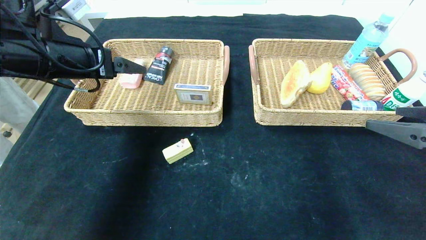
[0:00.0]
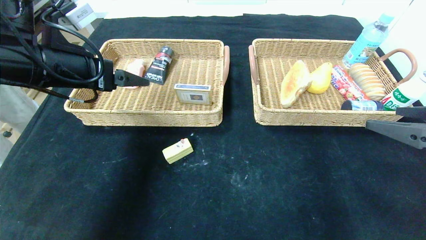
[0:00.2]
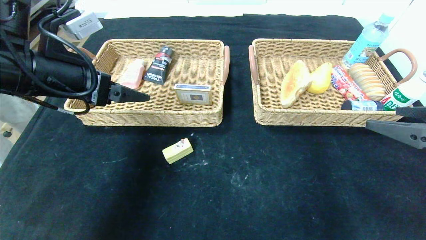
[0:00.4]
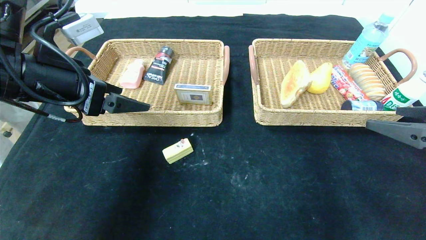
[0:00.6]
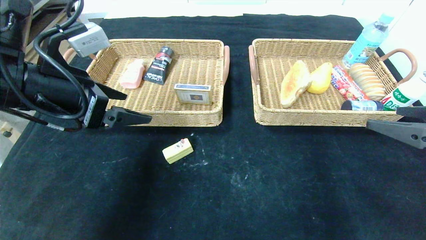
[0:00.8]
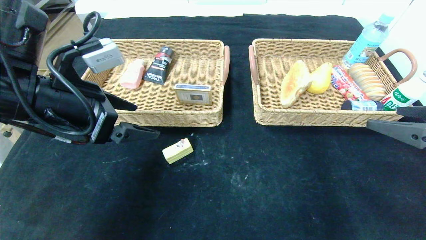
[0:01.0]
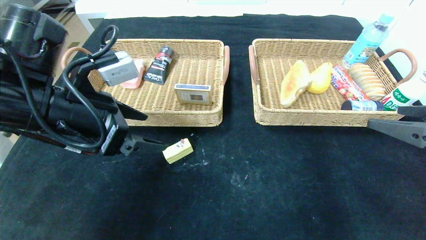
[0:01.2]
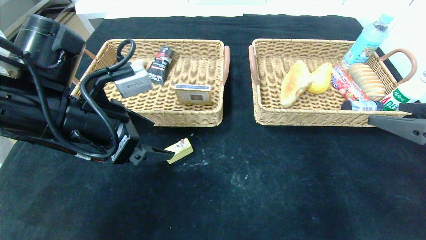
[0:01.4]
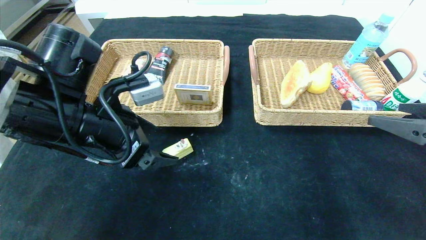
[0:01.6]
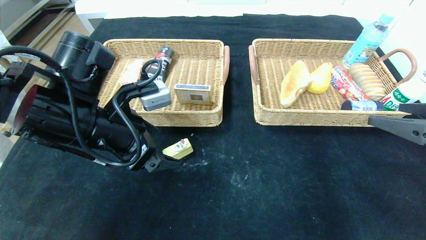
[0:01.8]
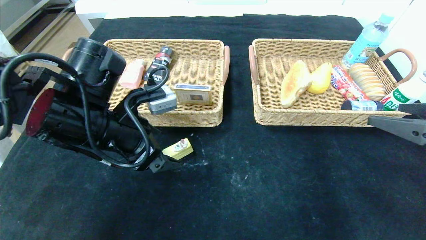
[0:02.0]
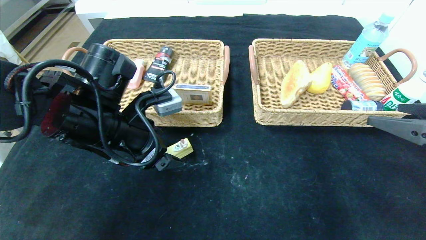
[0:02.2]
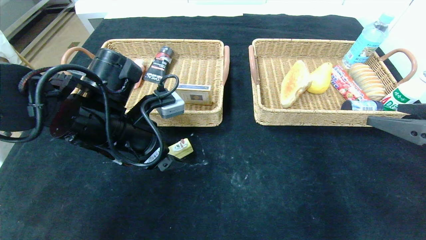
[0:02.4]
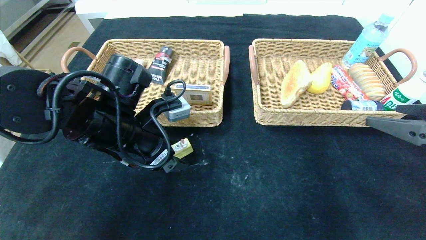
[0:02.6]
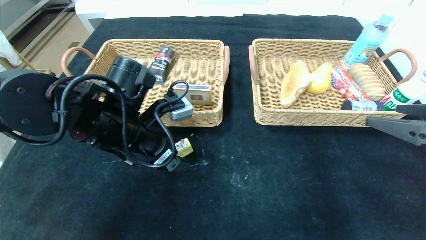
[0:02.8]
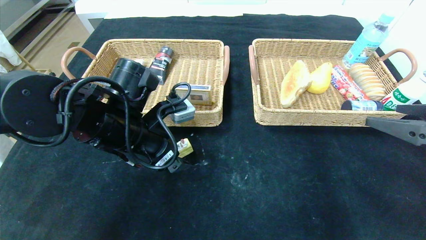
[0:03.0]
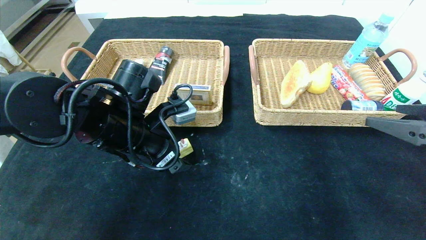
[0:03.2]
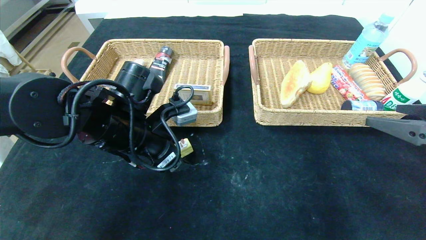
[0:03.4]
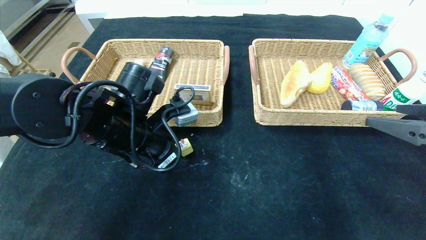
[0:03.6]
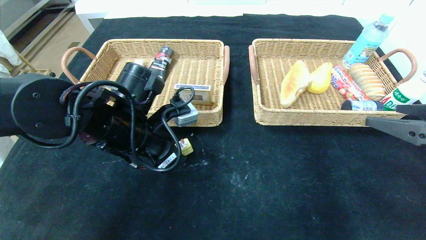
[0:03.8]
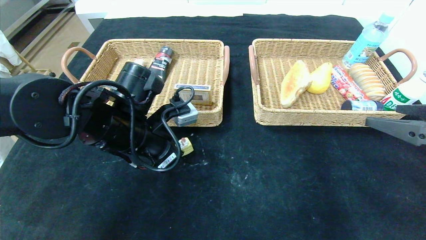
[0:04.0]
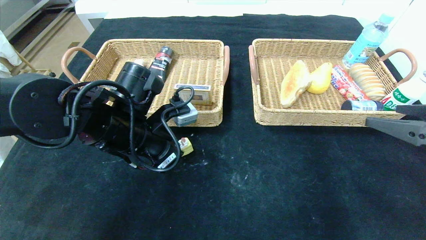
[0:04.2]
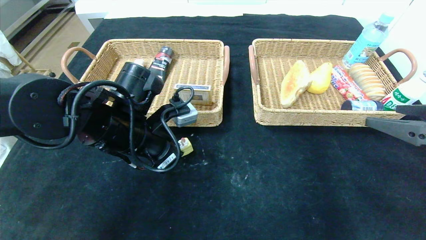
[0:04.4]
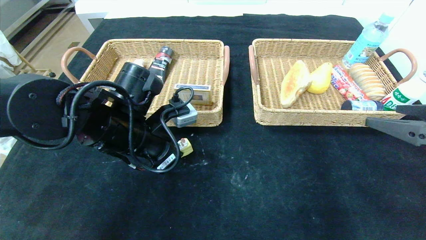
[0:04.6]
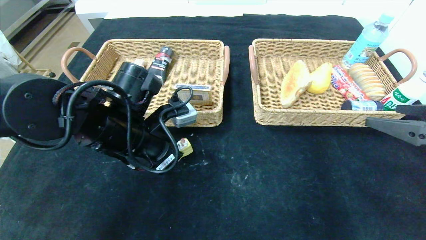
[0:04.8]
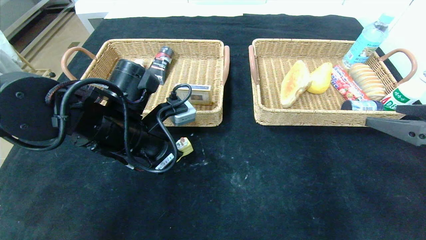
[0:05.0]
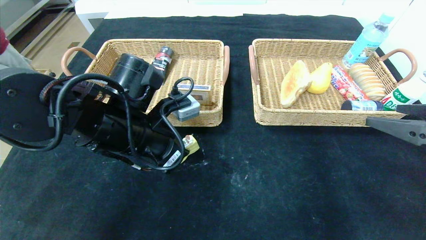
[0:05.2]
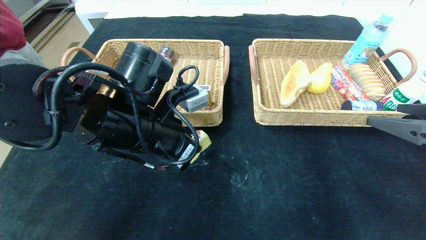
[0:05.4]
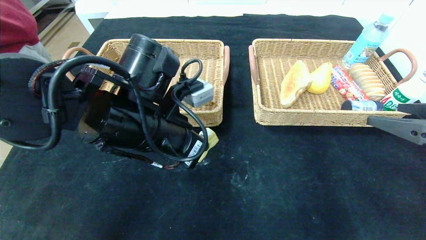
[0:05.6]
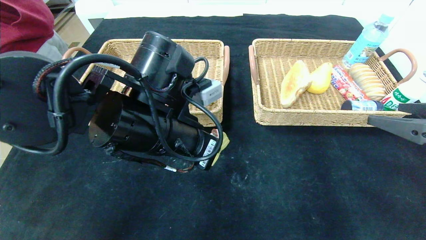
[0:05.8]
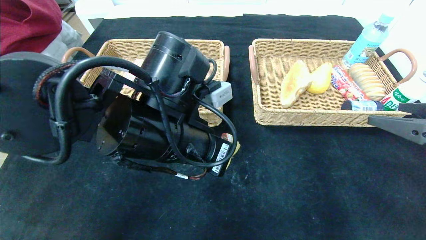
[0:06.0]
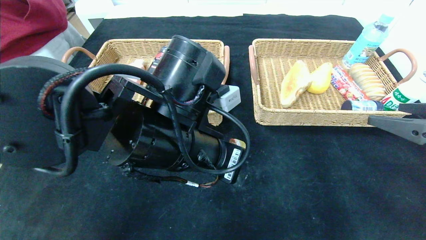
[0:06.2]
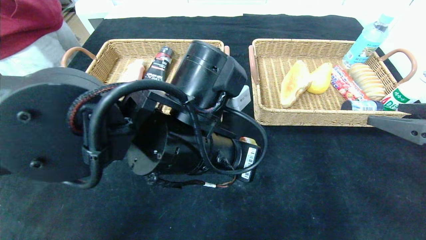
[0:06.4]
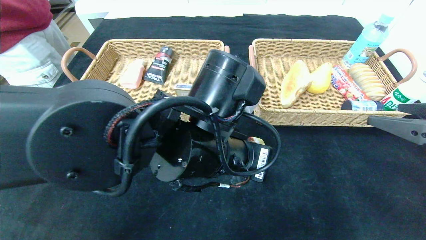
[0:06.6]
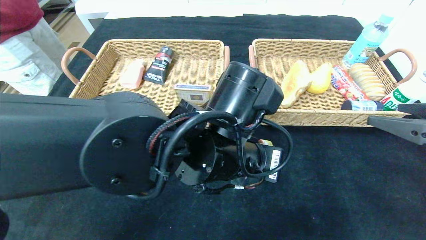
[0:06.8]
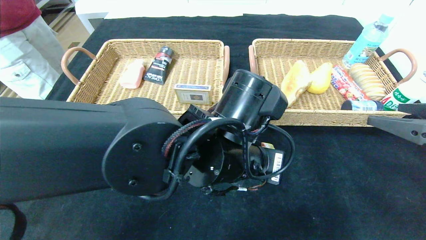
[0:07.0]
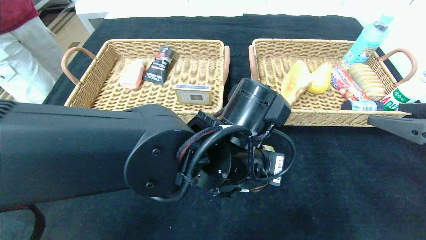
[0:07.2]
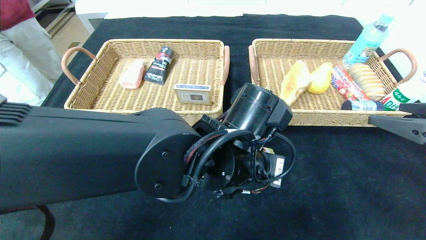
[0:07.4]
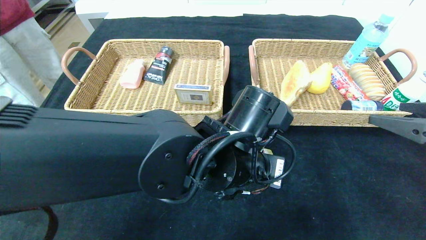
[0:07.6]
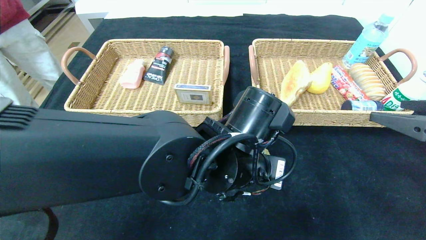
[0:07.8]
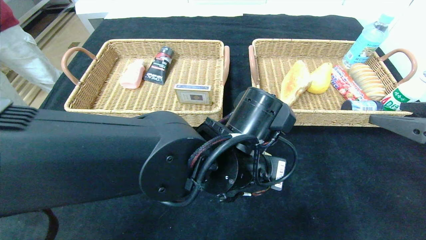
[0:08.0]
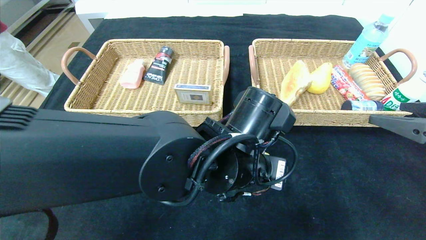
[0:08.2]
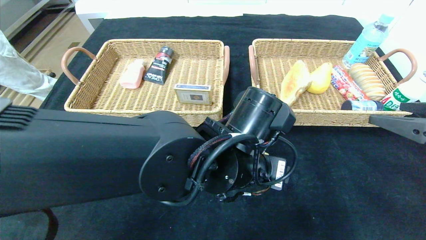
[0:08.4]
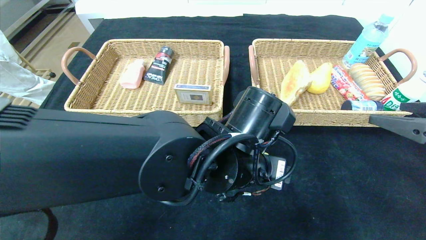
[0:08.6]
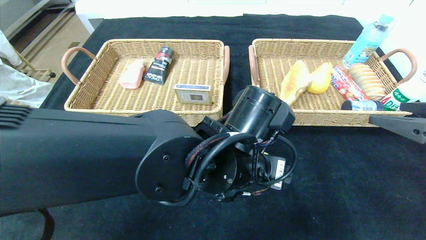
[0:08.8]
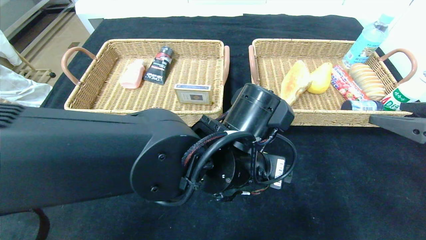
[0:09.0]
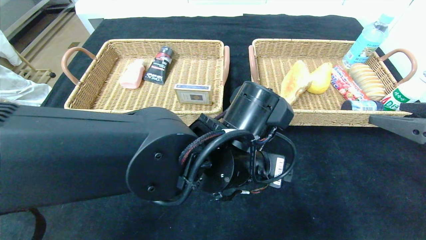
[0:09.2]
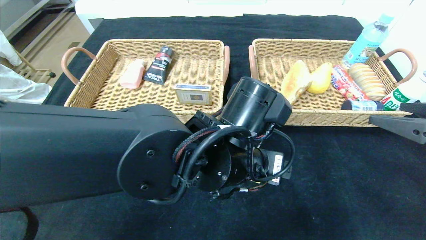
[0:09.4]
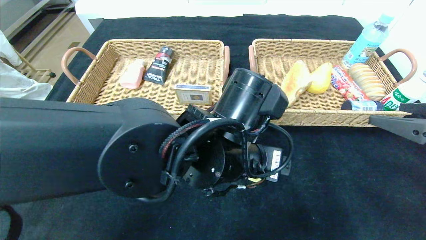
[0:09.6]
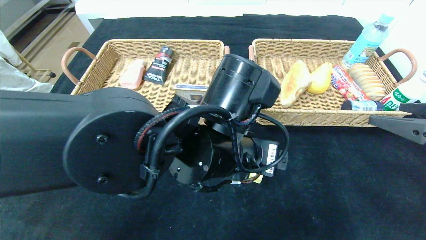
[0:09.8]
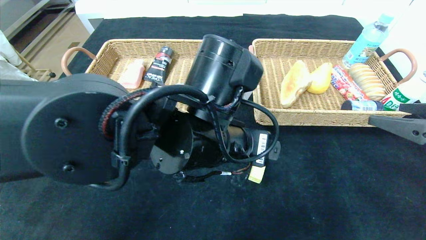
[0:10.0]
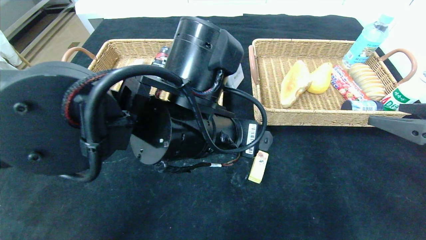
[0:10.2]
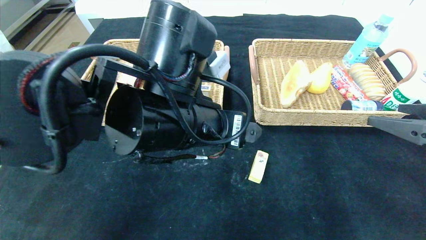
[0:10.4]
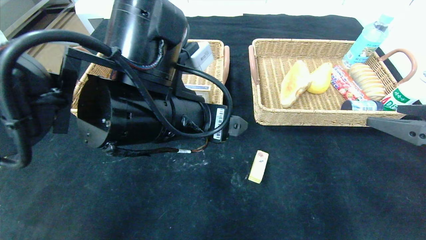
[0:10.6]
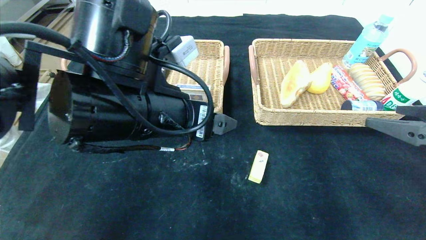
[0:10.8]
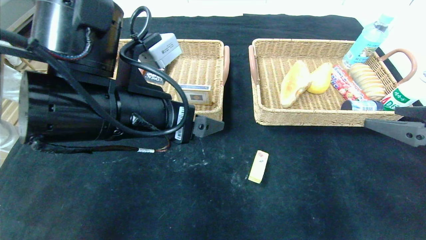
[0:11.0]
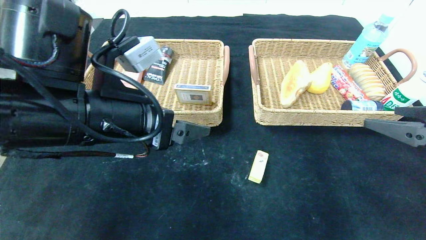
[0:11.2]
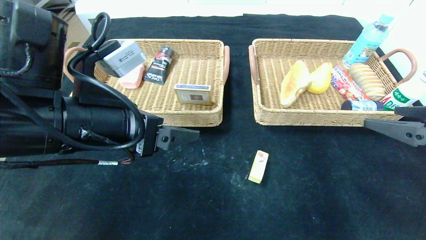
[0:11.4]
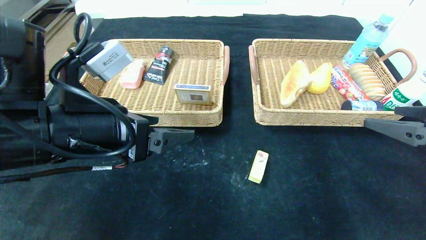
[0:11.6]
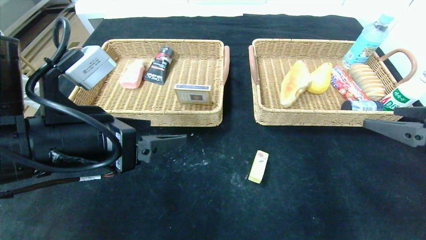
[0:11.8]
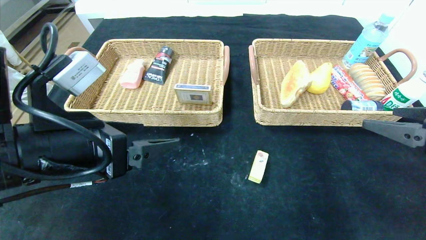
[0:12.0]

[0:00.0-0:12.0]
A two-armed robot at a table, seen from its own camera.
Step, 0:00.0 to 0:09.0: Place the yellow cake in the center of the table.
0:00.0 to 0:01.6: The left gripper travels to the right, downward and backward by approximately 10 cm.
0:01.6 to 0:03.0: The left gripper moves about 5 cm.
0:03.0 to 0:04.4: The left gripper closes.
0:04.4 to 0:06.0: The left gripper shifts roughly 10 cm to the right and backward.
0:06.0 to 0:07.6: The left gripper is displaced to the right and downward by some 10 cm.
0:07.6 to 0:09.0: The left gripper opens up.
0:09.0 to 0:10.4: The left gripper moves to the left and upward, about 10 cm.
0:10.4 to 0:12.0: The left gripper travels to the left by some 15 cm.

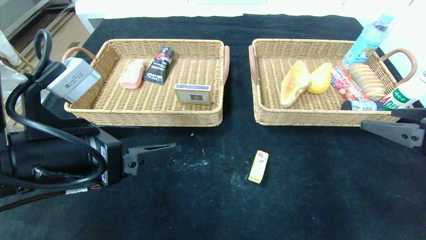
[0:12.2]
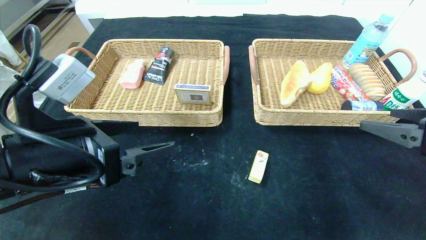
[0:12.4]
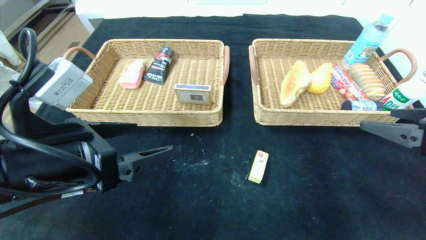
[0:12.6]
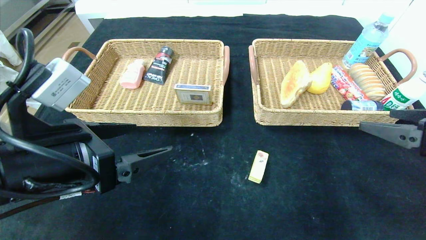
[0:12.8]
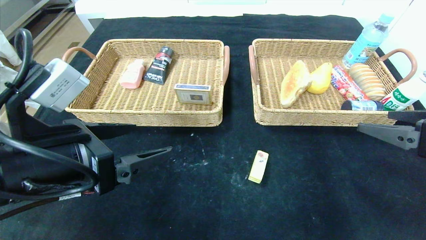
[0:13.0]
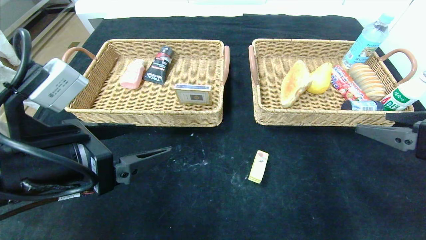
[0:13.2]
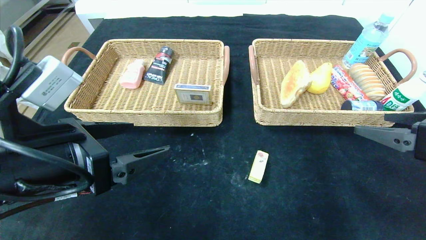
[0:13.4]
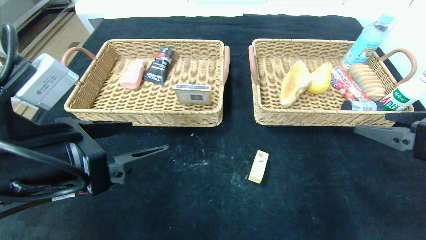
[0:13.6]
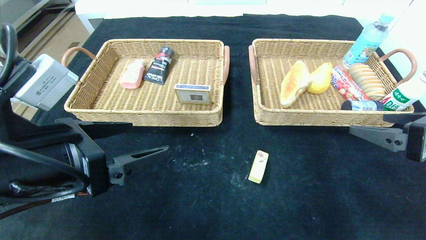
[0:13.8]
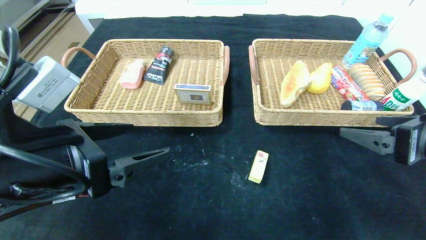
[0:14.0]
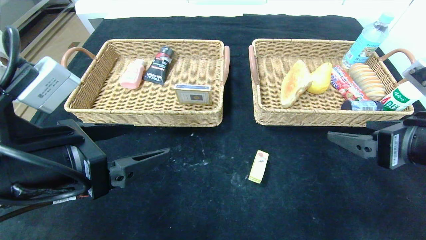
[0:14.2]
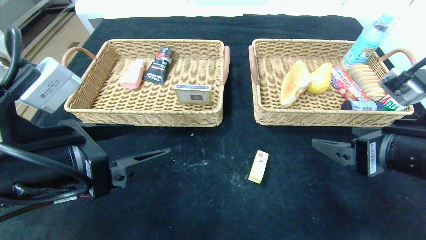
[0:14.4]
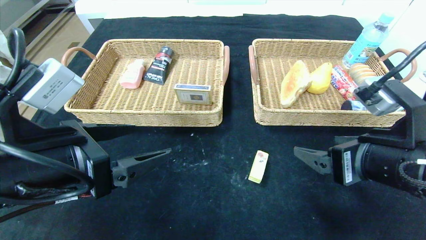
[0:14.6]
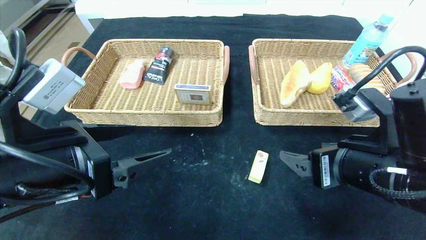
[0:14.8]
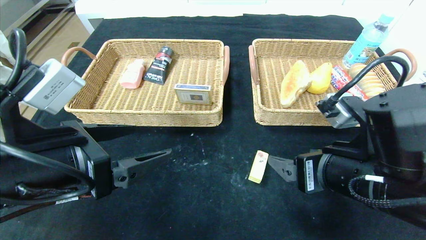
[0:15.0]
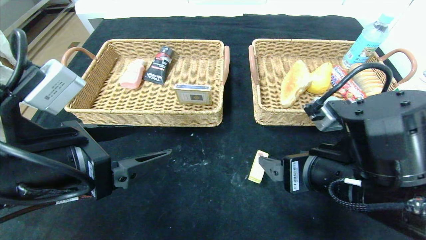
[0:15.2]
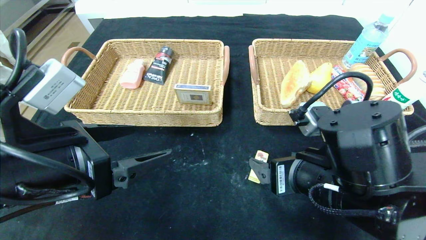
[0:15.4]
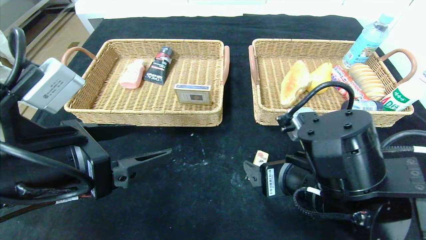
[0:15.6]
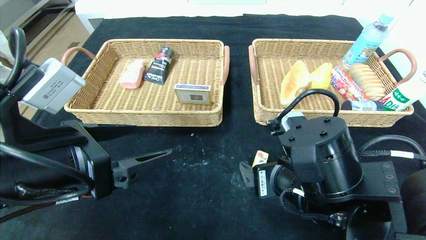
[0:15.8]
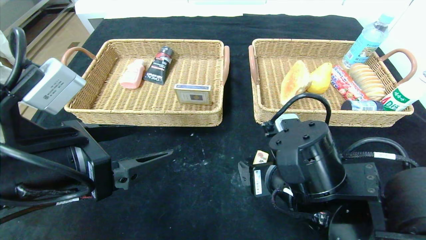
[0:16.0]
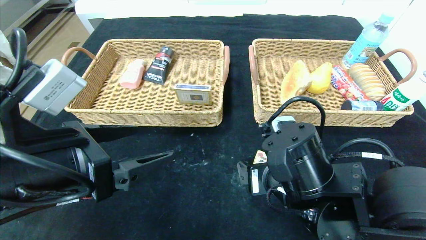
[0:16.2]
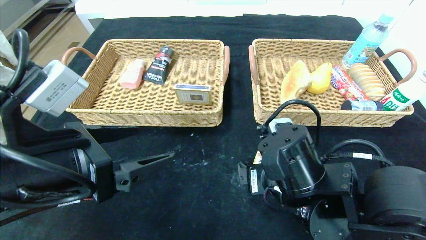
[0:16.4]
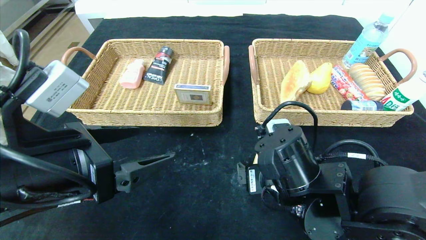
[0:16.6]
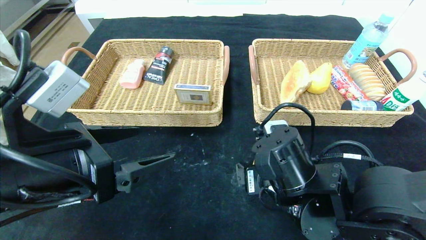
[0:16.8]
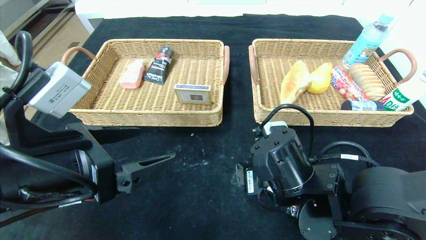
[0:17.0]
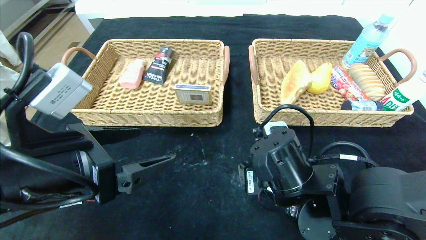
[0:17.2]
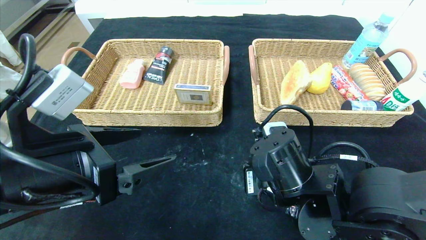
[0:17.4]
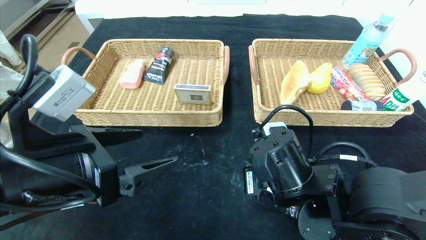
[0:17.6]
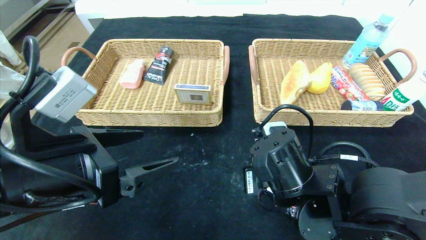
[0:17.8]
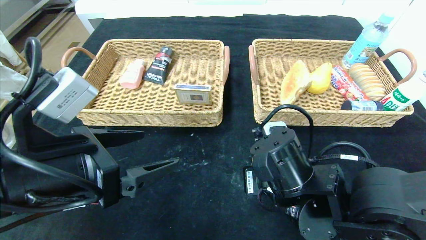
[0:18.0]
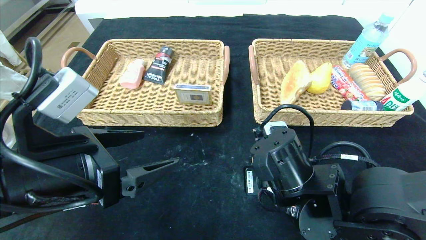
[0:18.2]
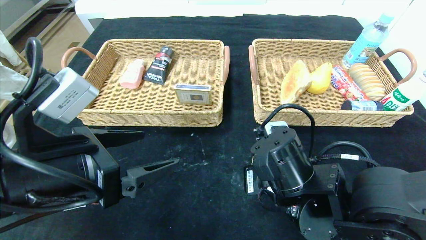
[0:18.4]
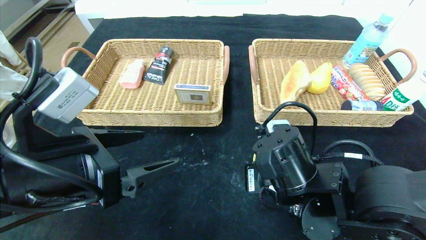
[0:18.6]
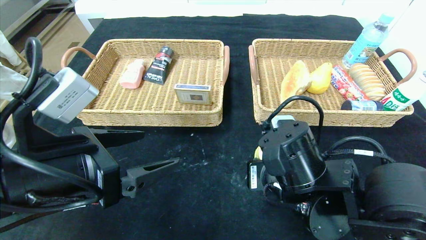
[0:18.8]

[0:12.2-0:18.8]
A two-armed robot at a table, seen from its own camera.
0:12.2 to 0:13.8: There are only small adjustments of the grippers.
0:13.8 to 0:15.4: The right gripper heads to the left, covering about 15 cm.
0:15.4 to 0:17.2: The right gripper shifts by some 5 cm.
0:17.2 to 0:18.8: The right gripper closes its fingers.
